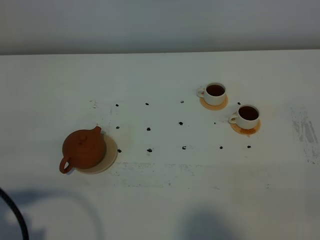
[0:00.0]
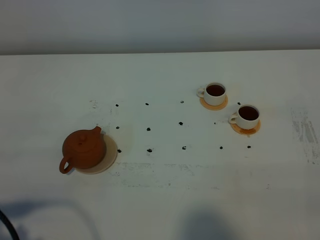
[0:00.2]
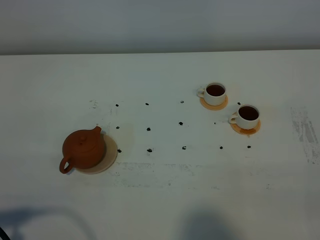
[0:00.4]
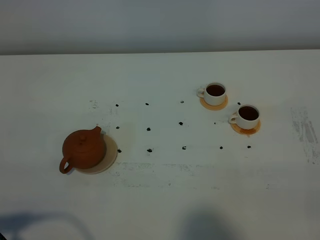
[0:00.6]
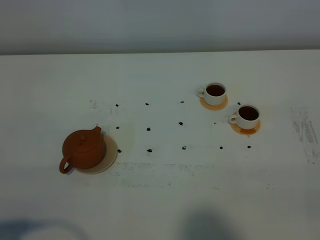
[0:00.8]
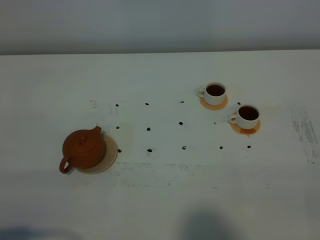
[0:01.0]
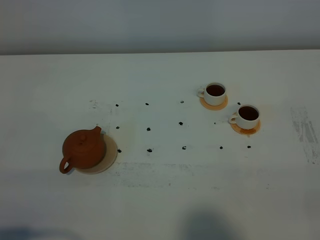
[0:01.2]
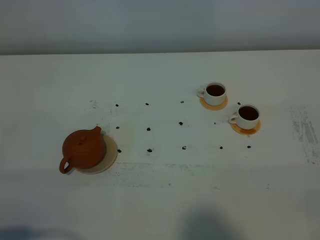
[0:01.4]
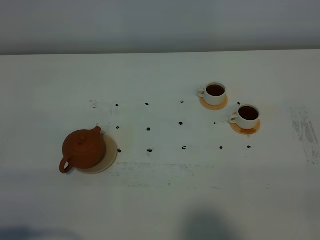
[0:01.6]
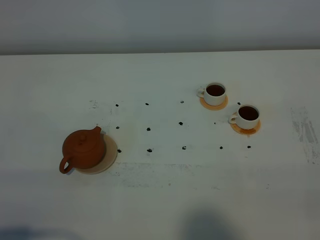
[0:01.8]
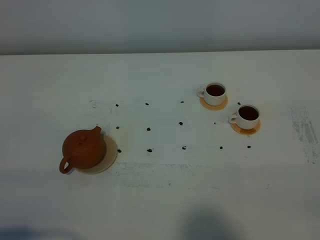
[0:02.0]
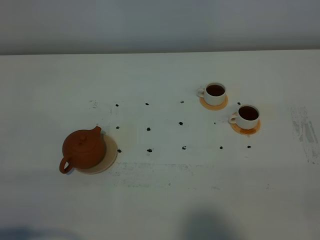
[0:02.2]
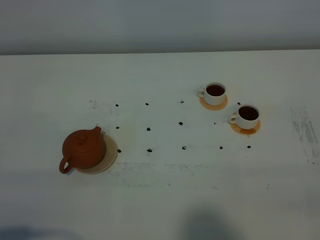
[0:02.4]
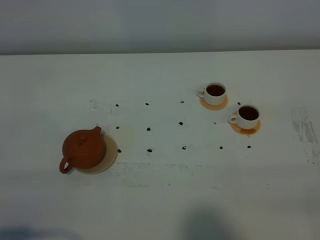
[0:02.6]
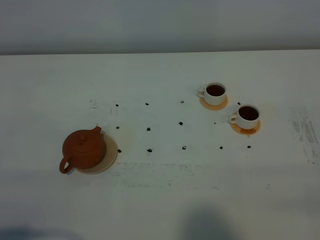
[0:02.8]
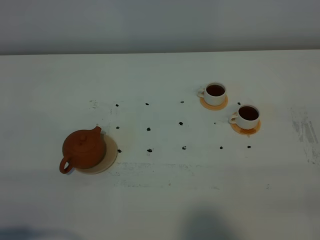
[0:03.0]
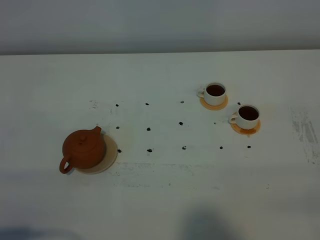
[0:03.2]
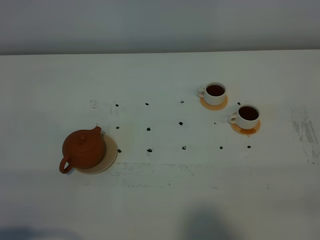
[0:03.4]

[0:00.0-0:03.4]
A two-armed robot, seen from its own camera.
Task of the whole recording: grasp the brown teapot and pour the tea into the two white teacups one by one, put the brown teapot back in its original place.
0:00.0 to 0:01.6: The left gripper moves backward, roughly 5 cm.
